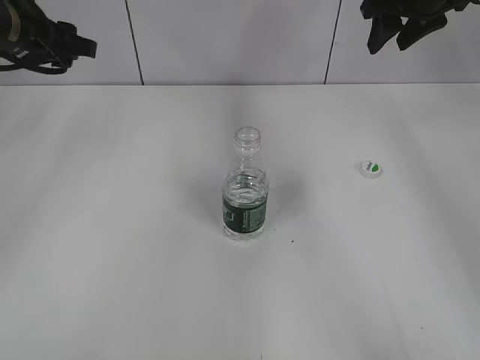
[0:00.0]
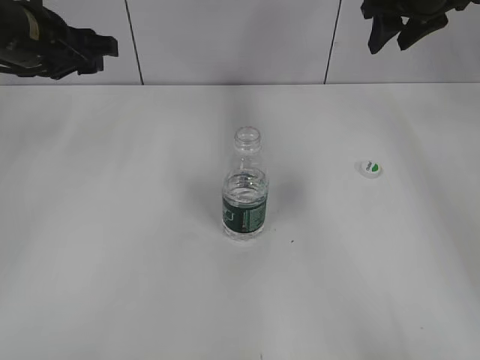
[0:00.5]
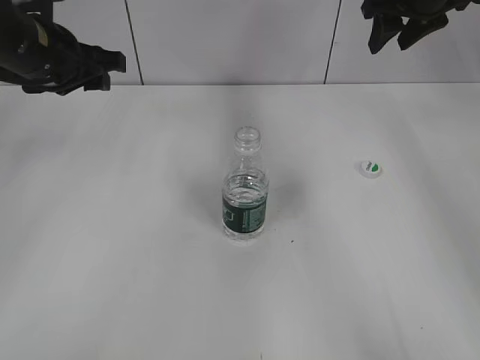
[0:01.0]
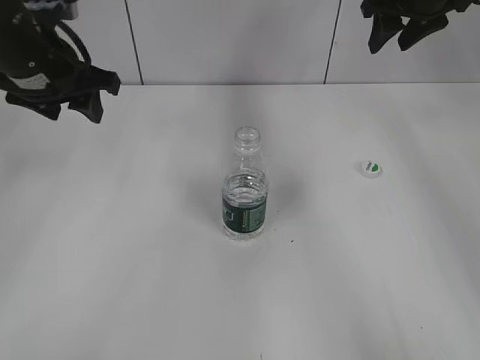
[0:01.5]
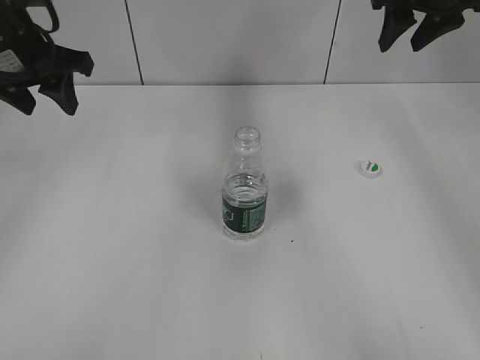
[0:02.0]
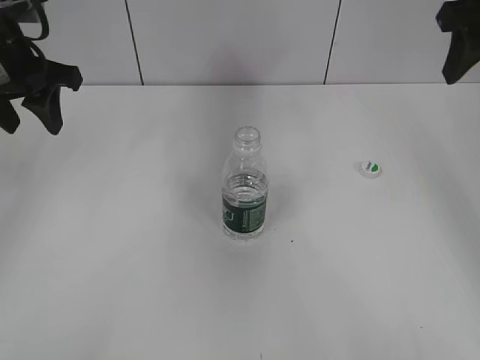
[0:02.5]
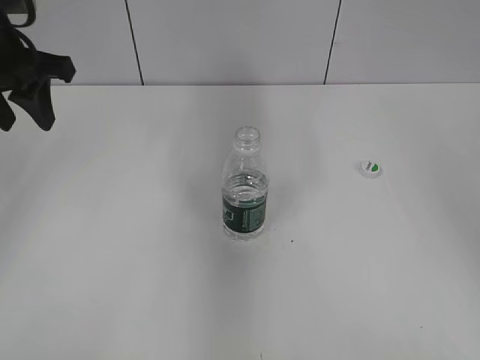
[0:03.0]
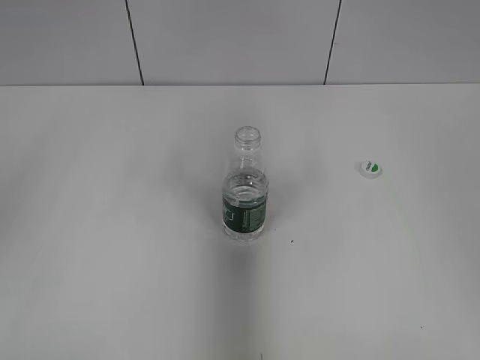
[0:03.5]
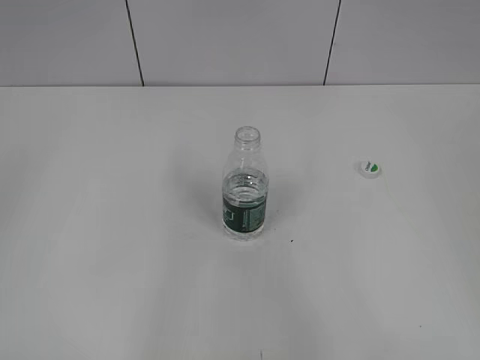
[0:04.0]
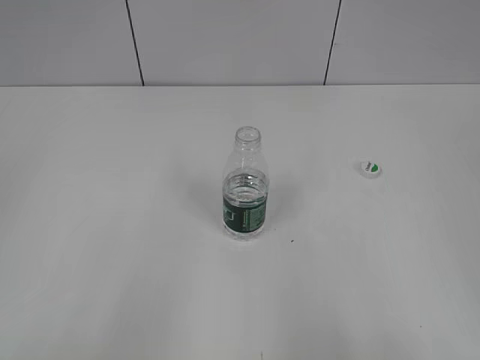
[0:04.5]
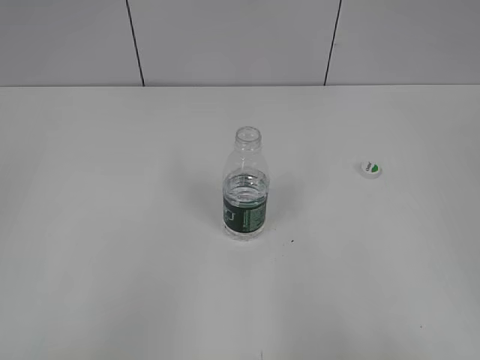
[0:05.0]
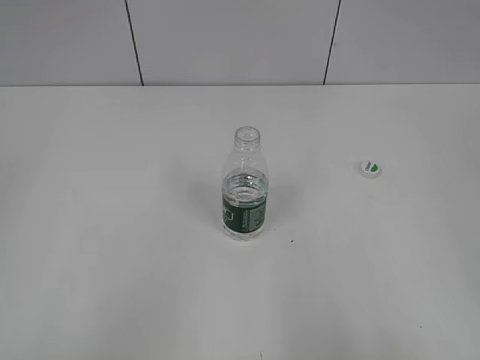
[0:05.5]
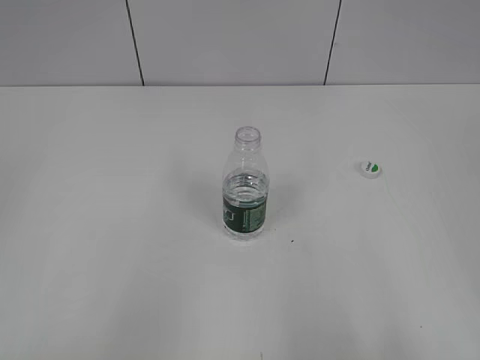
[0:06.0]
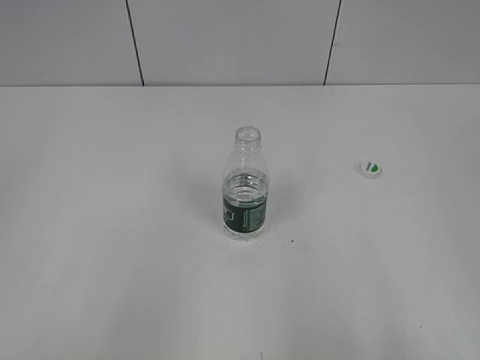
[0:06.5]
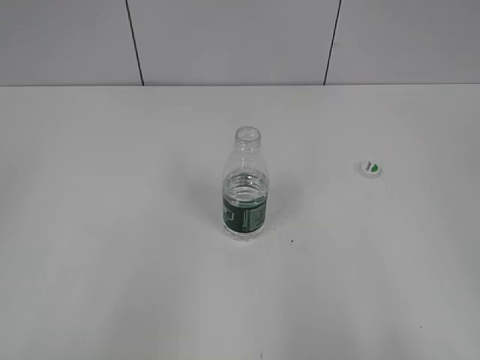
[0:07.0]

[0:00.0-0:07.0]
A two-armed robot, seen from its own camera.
0:02.0 to 0:03.5: The right gripper shifts roughly 35 cm backward; the left gripper travels backward by approximately 15 cm.
0:03.5 to 0:05.0: The left gripper goes approximately 20 cm backward. Meanwhile the right gripper shifts approximately 15 cm backward and downward.
